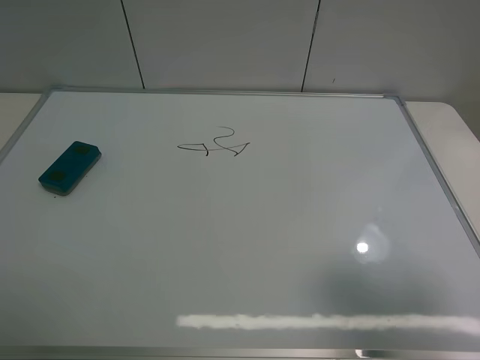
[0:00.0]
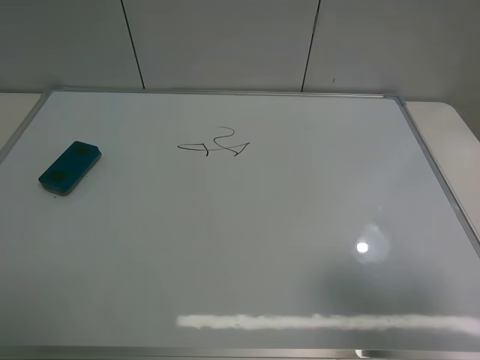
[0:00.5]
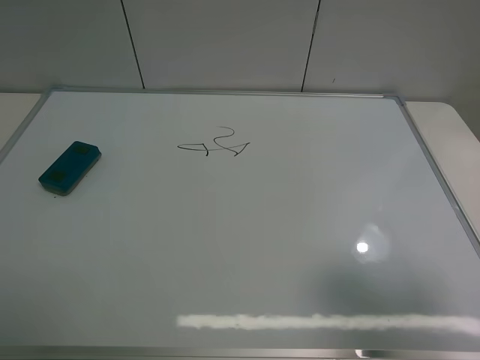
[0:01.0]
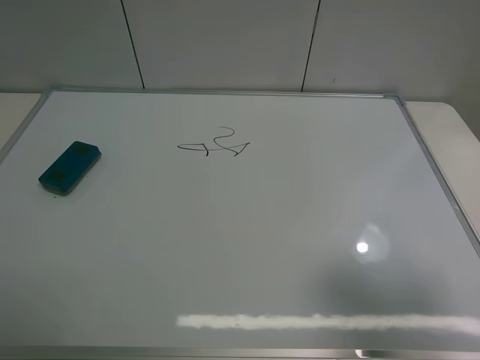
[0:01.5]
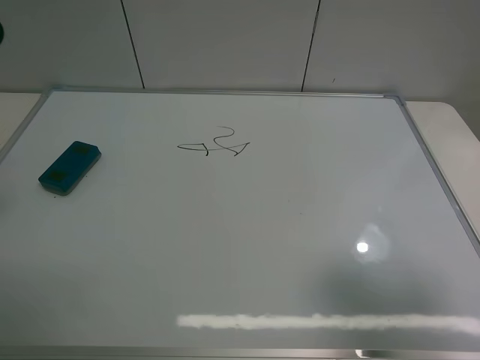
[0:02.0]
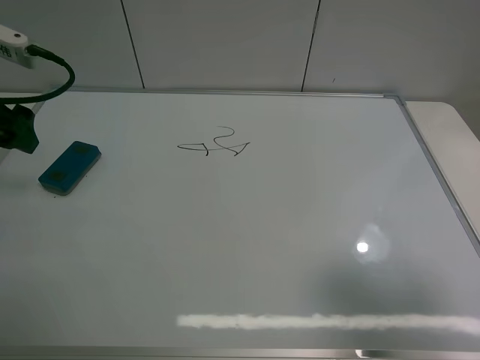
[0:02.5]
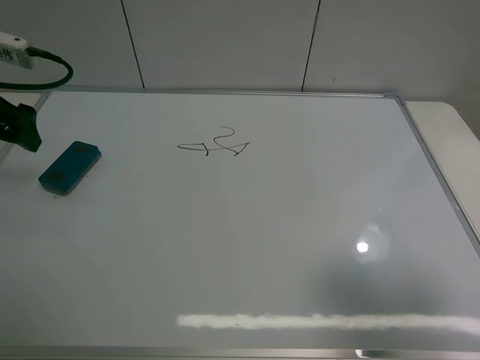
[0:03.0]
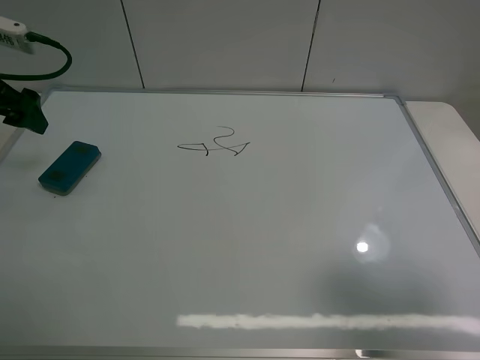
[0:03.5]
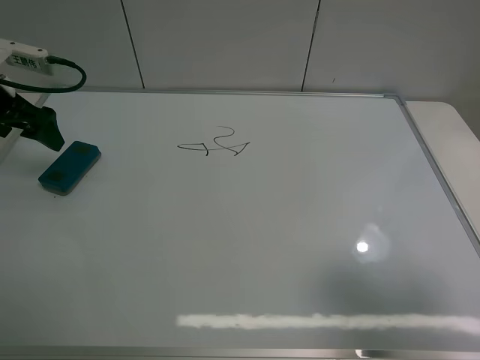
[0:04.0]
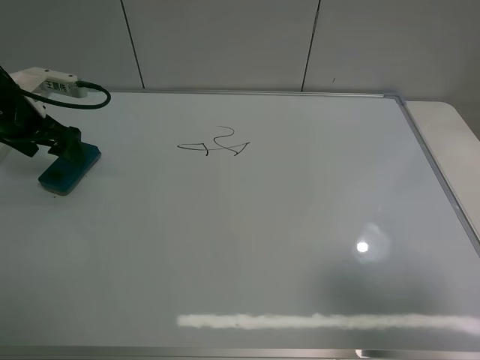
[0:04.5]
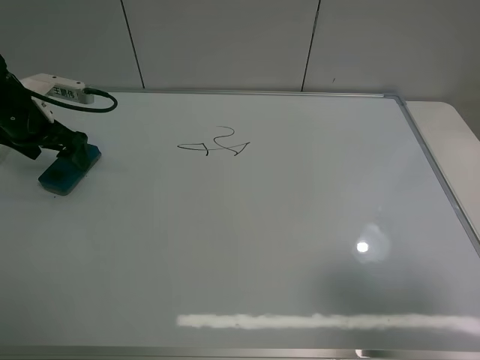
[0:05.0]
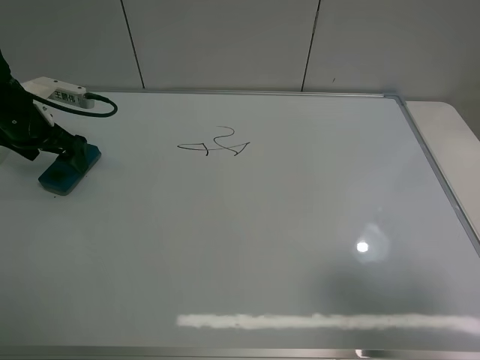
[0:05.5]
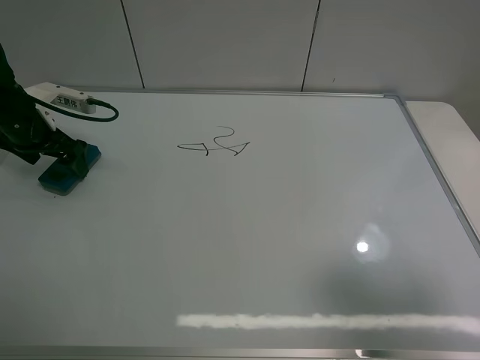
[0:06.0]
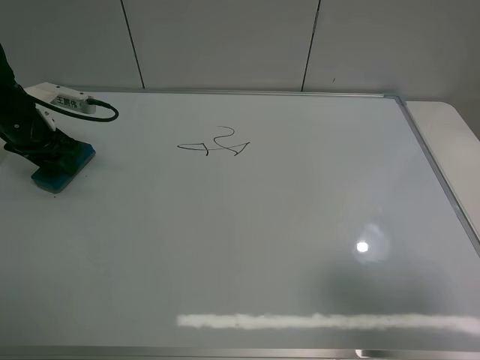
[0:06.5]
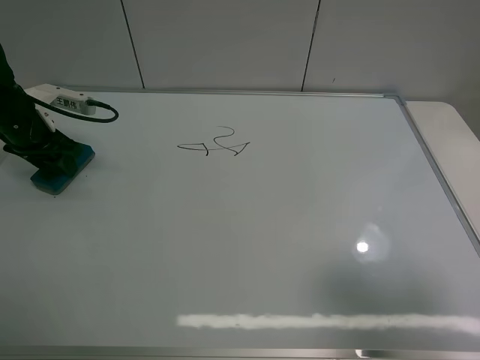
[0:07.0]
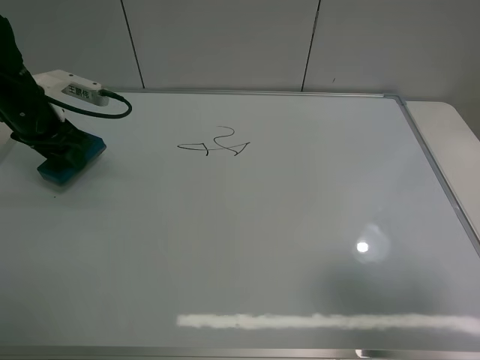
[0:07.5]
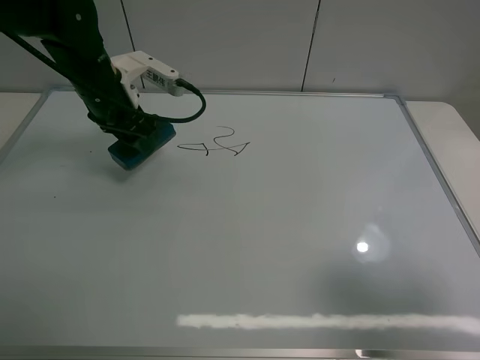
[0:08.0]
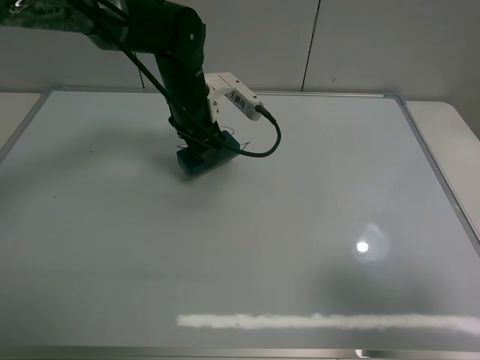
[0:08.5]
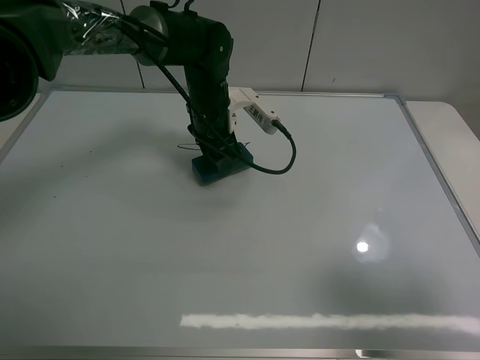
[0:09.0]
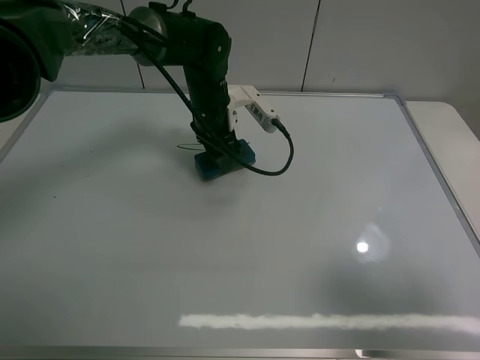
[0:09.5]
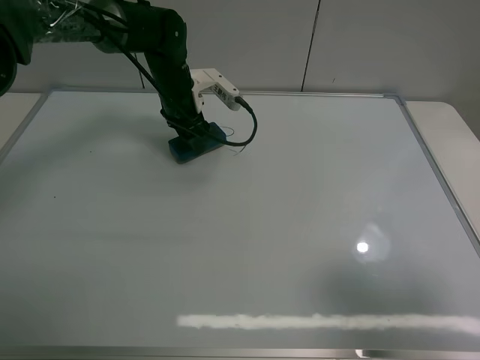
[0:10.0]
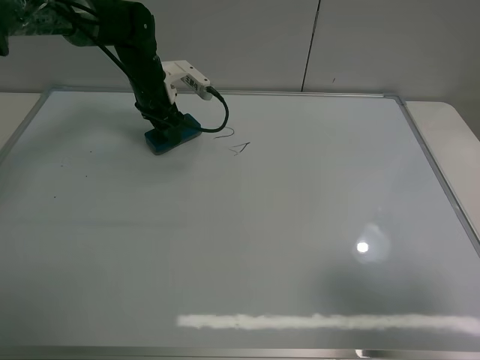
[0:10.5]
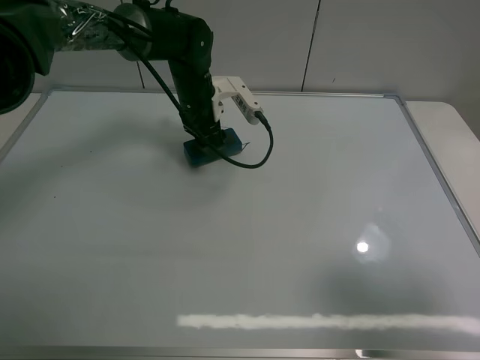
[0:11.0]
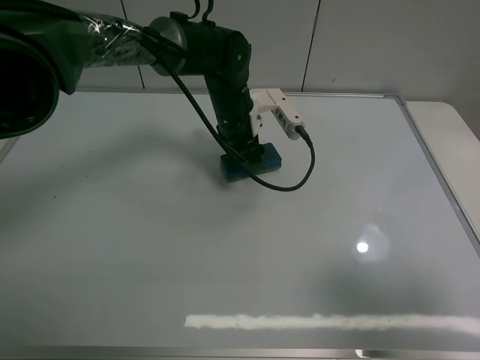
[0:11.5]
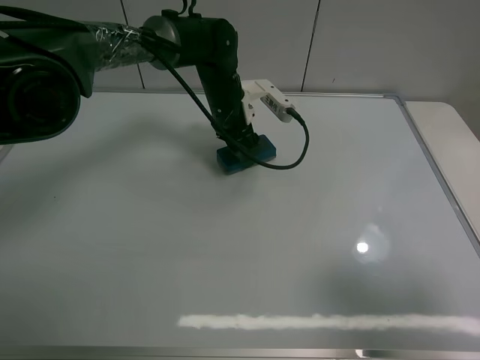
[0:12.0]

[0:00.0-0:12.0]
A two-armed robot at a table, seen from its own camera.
Task of the whole recording: use the left claw to pick up the whiteboard eraser, wipe the notes on the whiteboard clean, and then put them back in place.
Step, 0:00.0 to 0:06.5: Grasp the eraser with the left gripper.
0:02.0 to 0:04.0: The left gripper goes roughly 20 cm forward and downward.
0:04.0 to 0:06.0: The left gripper heads downward, covering approximately 5 cm.
0:06.0 to 0:08.0: The left gripper moves to the right, approximately 15 cm, and closes.
0:08.0 to 0:10.0: The left gripper travels forward, to the right and downward by approximately 15 cm.
0:10.0 to 0:12.0: The left gripper shifts roughly 10 cm to the right.

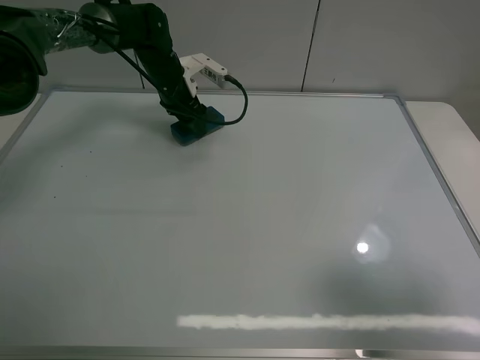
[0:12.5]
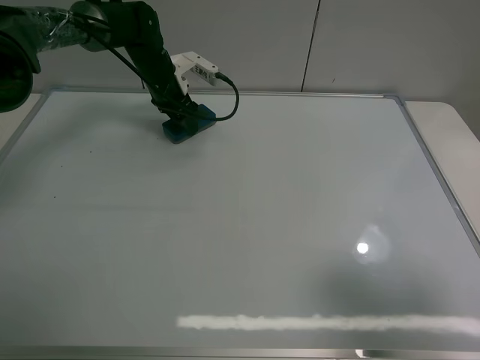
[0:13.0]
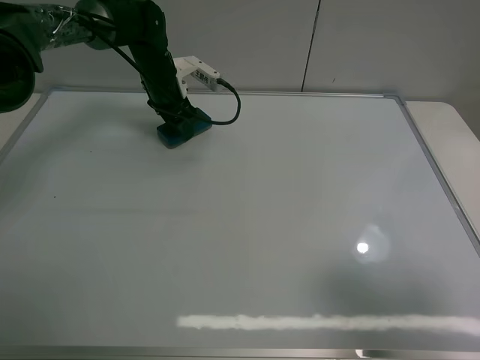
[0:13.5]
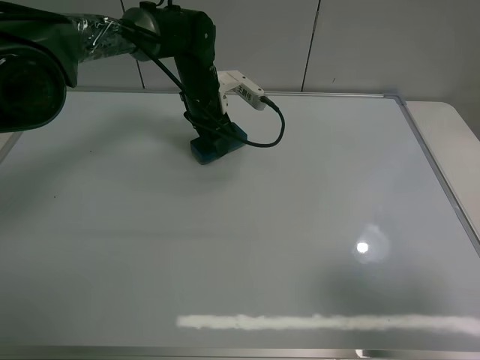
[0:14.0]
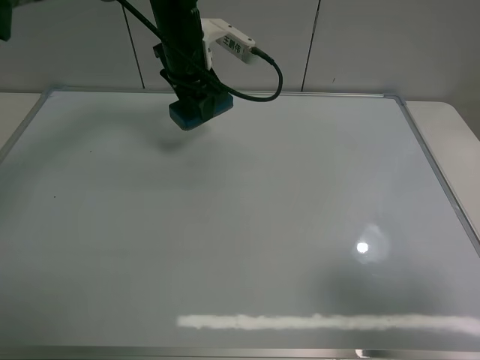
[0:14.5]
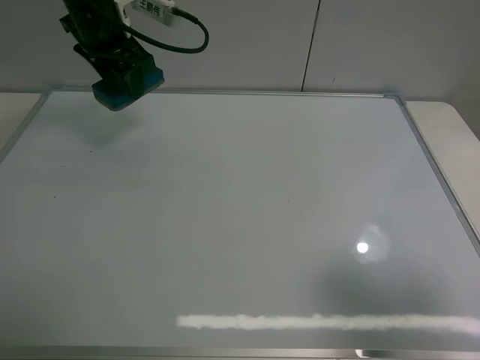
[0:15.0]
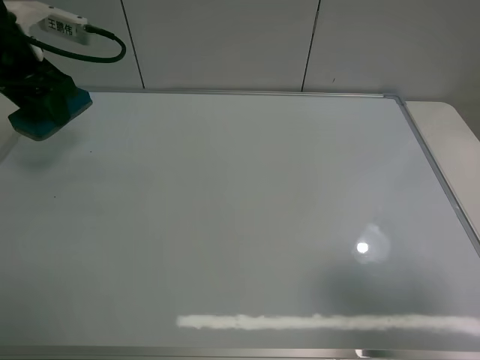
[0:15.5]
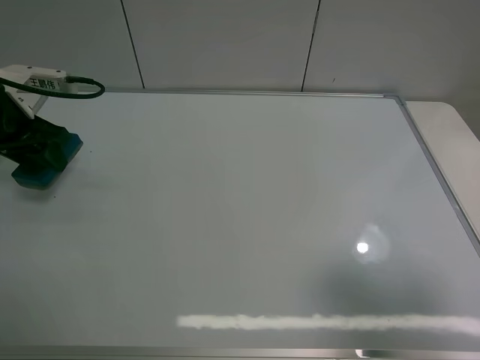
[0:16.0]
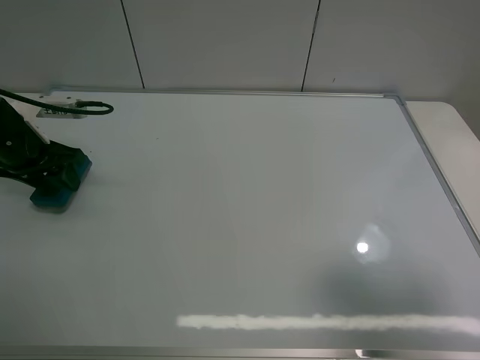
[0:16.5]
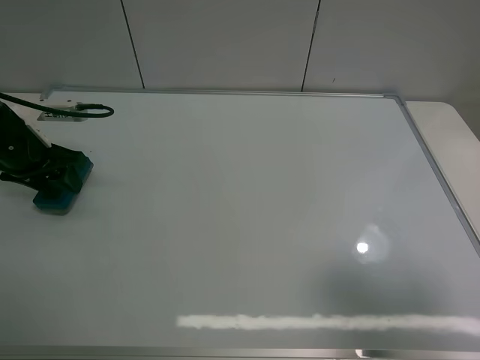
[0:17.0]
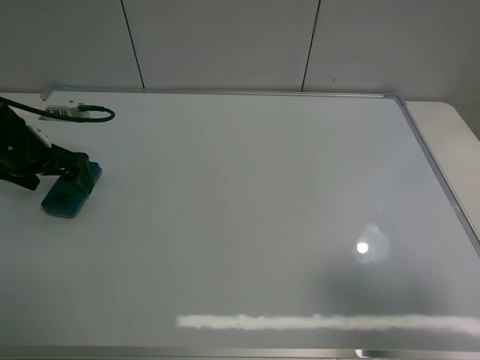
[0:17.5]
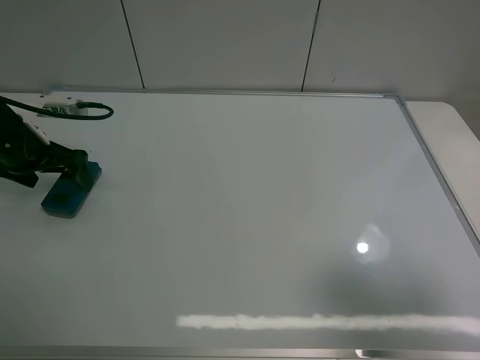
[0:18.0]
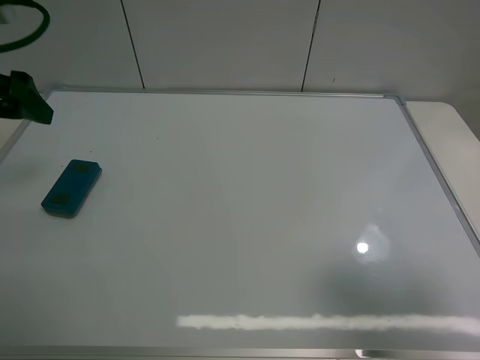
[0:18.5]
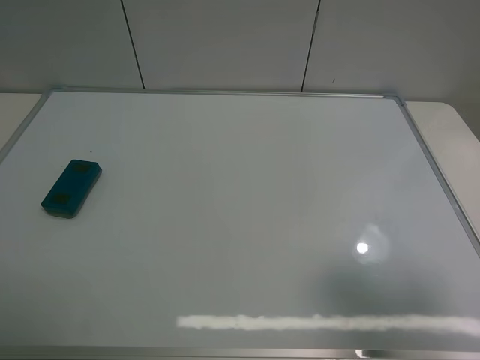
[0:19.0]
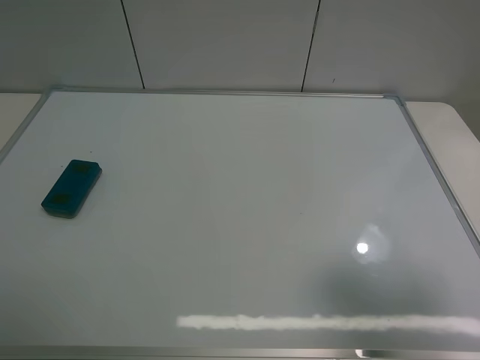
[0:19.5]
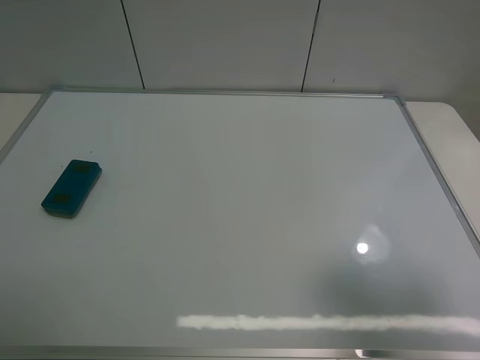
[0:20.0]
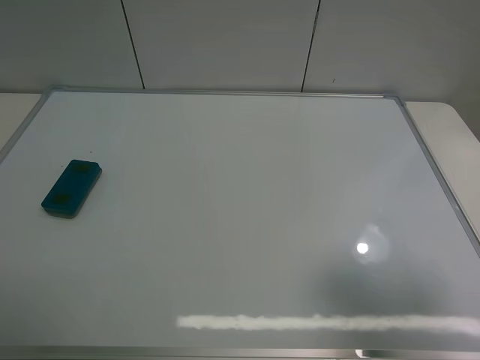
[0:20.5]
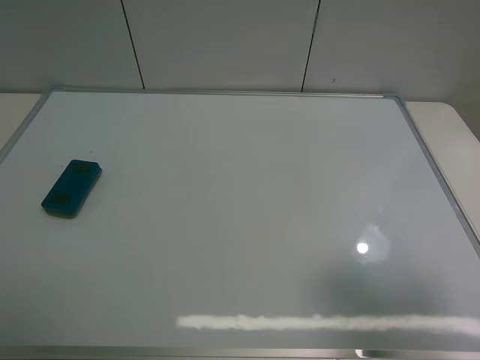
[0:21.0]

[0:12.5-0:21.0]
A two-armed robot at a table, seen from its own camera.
Task of the whole recording: use the left claw to pick up the whiteboard eraser, wipe the notes on the whiteboard clean, and then put them back in place.
Step, 0:14.5 to 0:17.0: Place the eraser with the left gripper.
0:12.5 to 0:14.5: The left gripper goes about 15 cm upward, backward and to the right.
0:14.5 to 0:16.5: The left gripper shifts about 25 cm to the left and backward.
0:16.5 to 0:19.0: The left gripper goes roughly 30 cm upward and backward, and opens.
